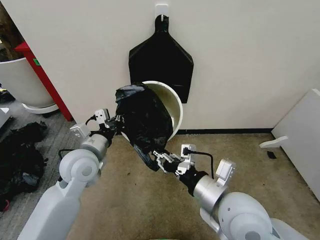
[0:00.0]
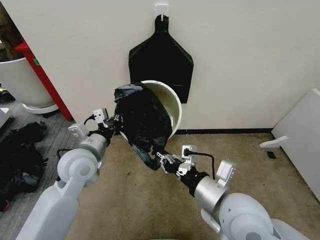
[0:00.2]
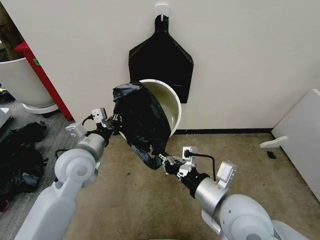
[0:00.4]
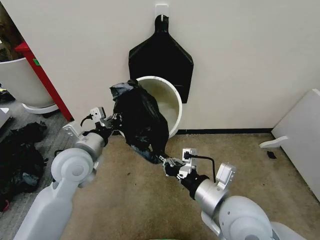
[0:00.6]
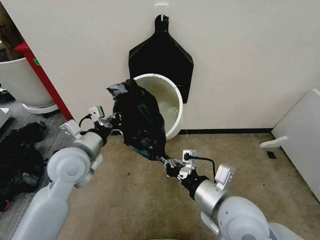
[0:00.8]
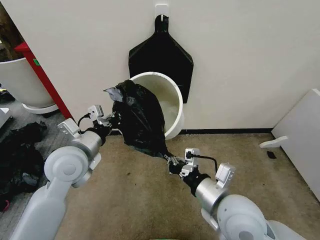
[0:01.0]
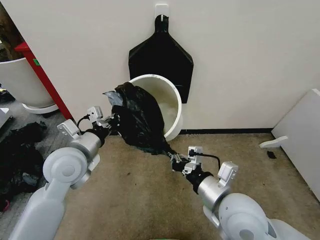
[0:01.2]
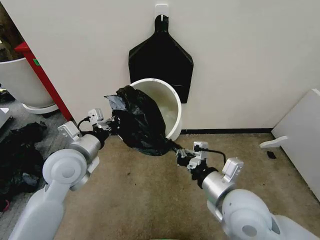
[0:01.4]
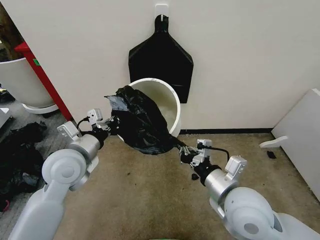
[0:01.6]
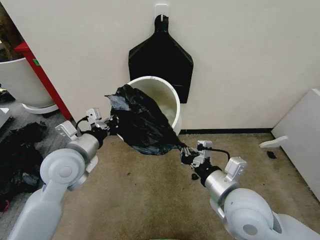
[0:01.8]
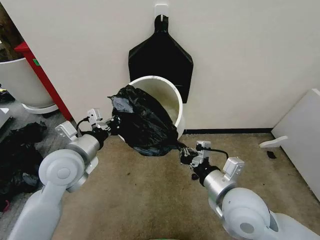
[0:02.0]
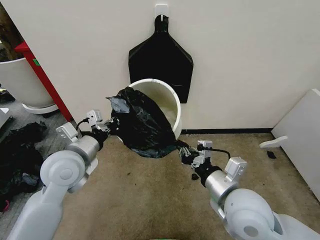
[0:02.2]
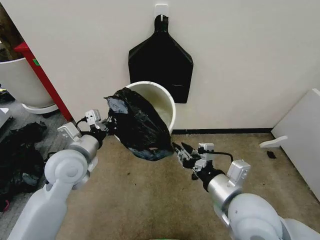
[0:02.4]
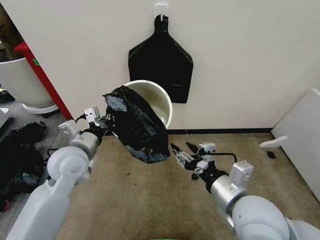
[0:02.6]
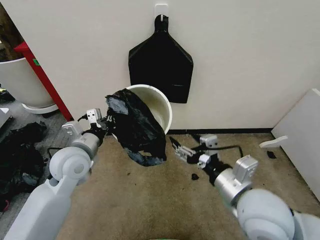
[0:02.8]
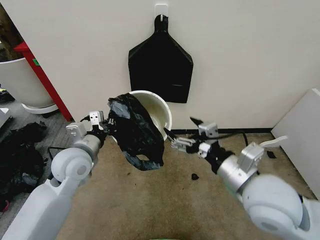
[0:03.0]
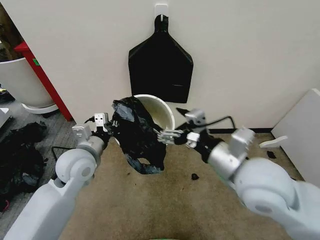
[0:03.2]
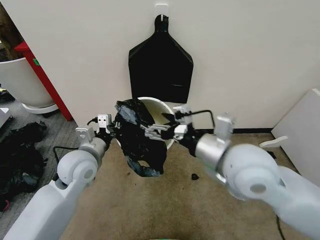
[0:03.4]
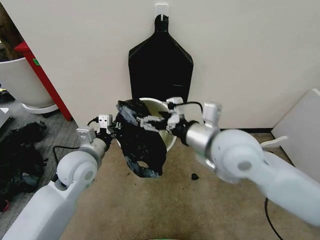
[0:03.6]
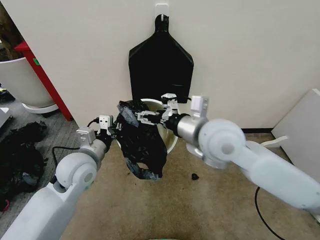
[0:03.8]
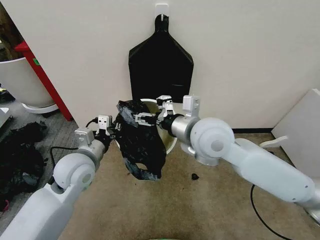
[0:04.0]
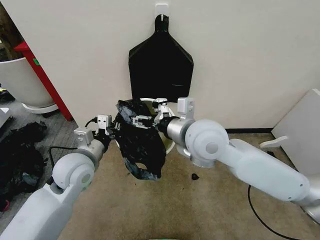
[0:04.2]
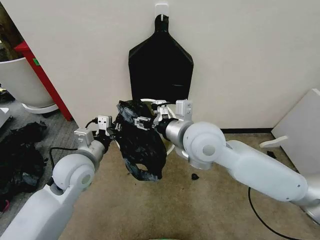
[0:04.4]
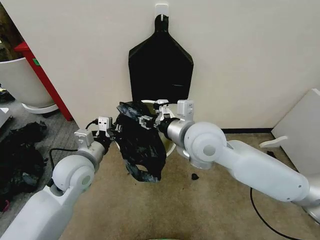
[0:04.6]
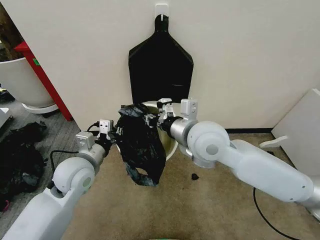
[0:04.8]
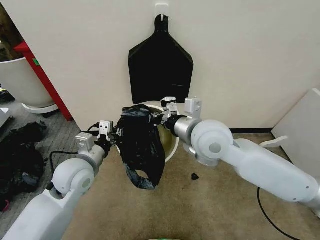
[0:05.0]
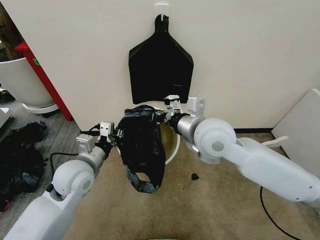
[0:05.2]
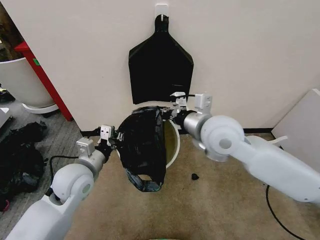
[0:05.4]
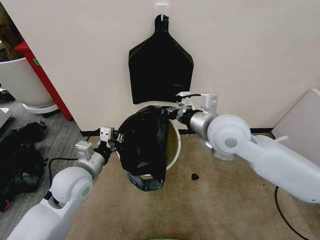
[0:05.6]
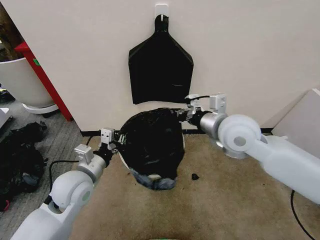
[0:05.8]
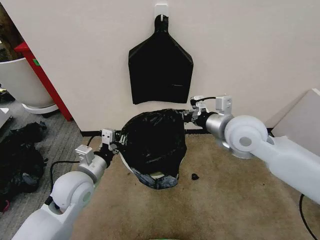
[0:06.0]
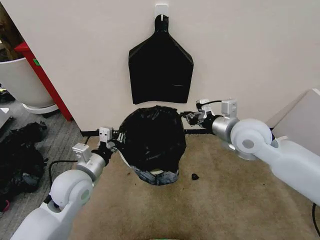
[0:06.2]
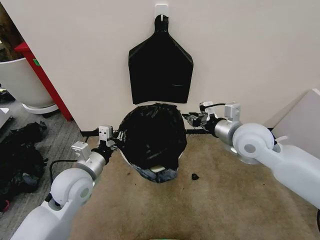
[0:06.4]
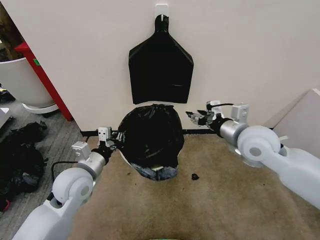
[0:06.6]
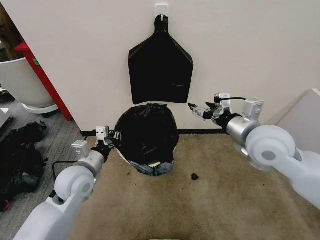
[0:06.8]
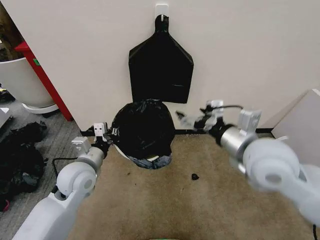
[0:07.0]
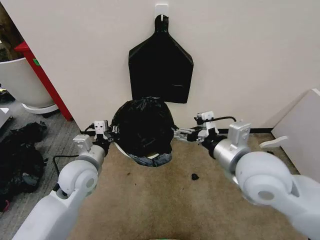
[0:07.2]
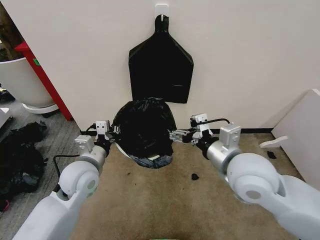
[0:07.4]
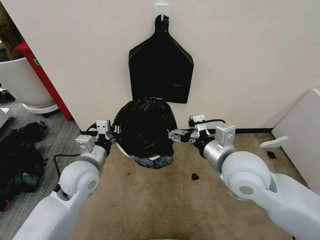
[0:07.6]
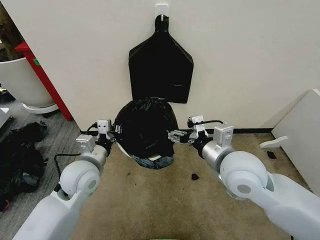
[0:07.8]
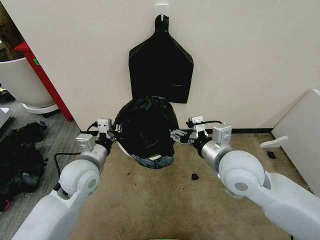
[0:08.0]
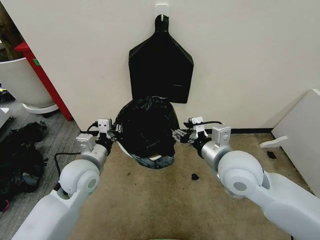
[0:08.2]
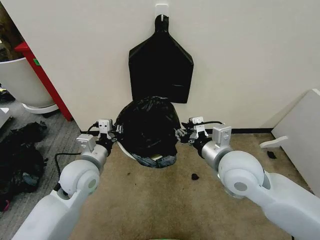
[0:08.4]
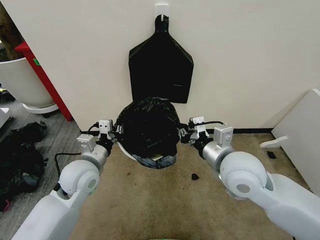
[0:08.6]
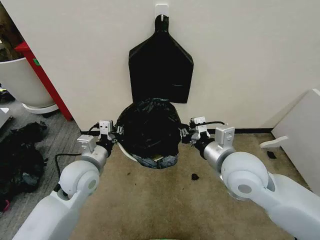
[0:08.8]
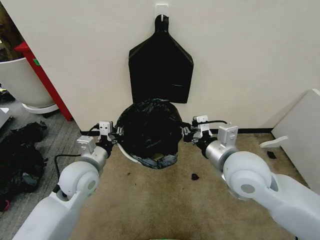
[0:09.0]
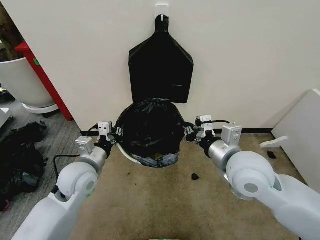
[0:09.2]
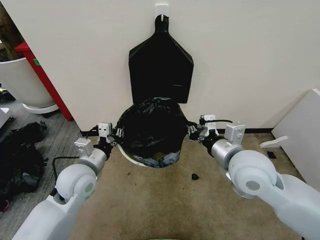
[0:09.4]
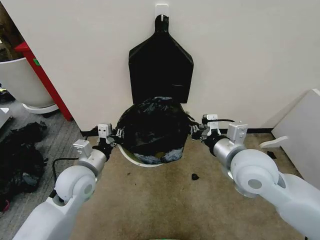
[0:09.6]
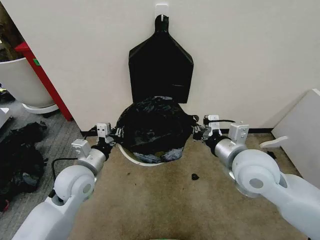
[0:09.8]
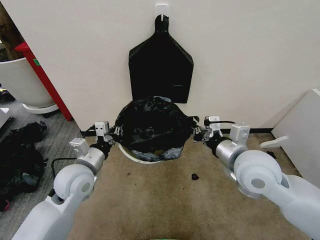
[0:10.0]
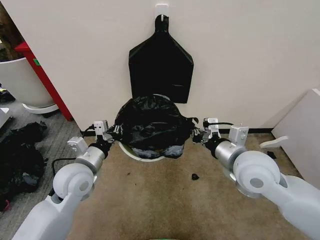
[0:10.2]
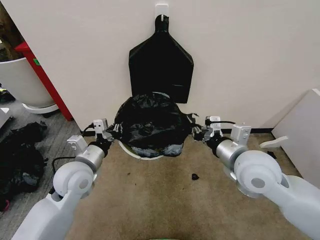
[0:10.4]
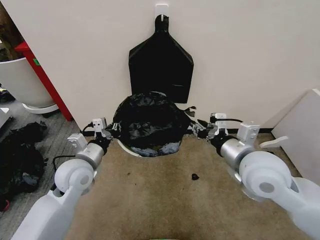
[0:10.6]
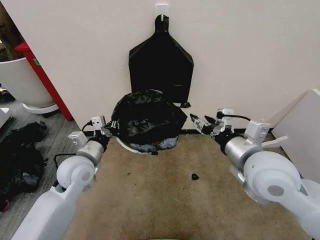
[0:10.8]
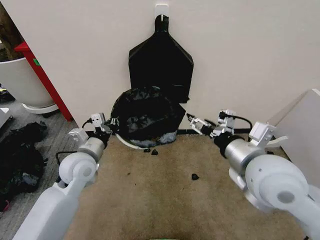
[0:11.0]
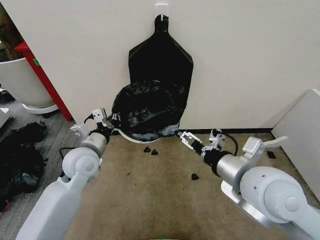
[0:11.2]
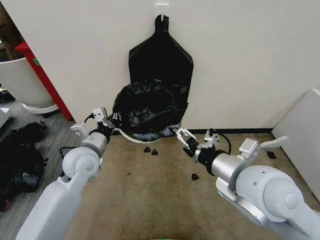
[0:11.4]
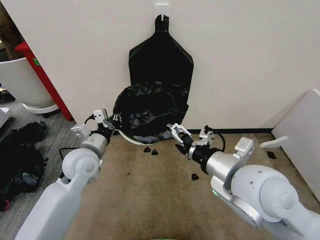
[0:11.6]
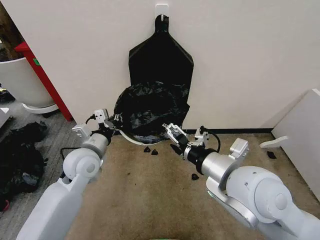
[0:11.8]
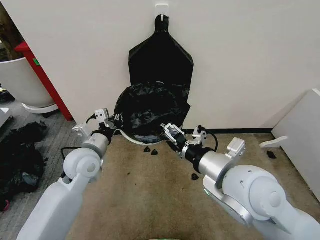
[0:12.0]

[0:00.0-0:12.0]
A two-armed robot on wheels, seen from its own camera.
Task of the whole recording: Place the garbage bag over the trash bin.
0:00.0 to 0:01.6: The grippers make only small movements.
0:01.6 to 0:03.0: The right gripper moves upward, roughly 5 cm, and opens up.
0:03.0 to 0:04.4: The right gripper heads forward and to the left, covering roughly 15 cm.
0:04.4 to 0:06.0: The right gripper travels to the right by approximately 10 cm, and closes up.
0:06.0 to 0:07.6: The right gripper travels backward by roughly 10 cm, and opens.
0:07.6 to 0:09.0: The right gripper closes up.
0:09.0 to 0:10.4: The grippers stay close to where they were, moving slightly.
0:10.4 to 0:12.0: The right gripper shifts some 10 cm backward and to the left, and opens.

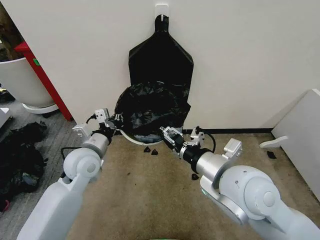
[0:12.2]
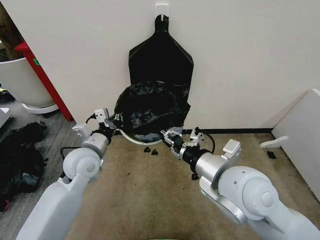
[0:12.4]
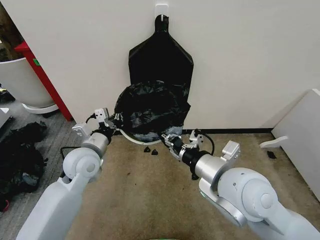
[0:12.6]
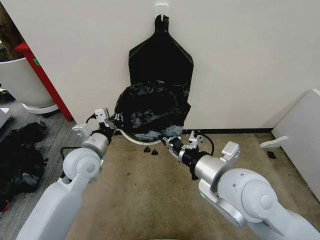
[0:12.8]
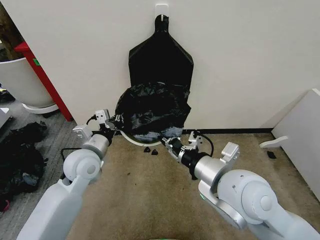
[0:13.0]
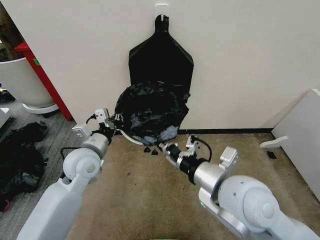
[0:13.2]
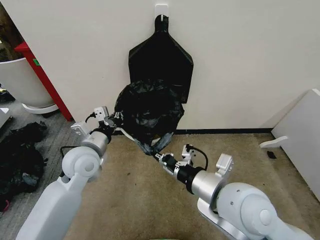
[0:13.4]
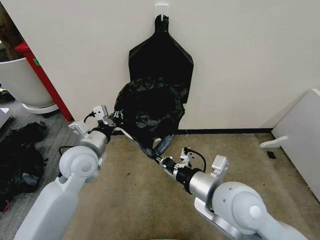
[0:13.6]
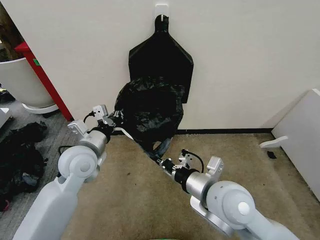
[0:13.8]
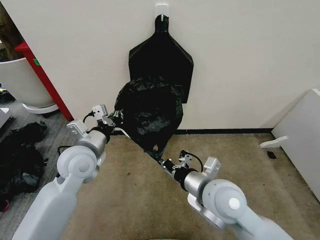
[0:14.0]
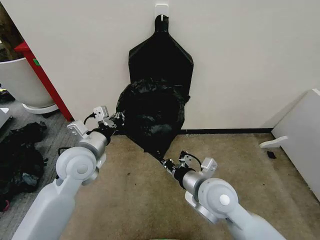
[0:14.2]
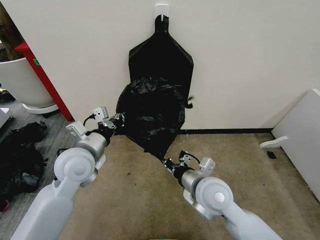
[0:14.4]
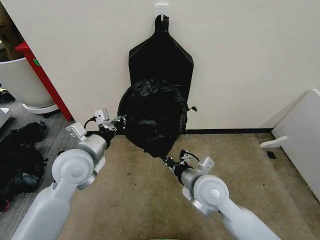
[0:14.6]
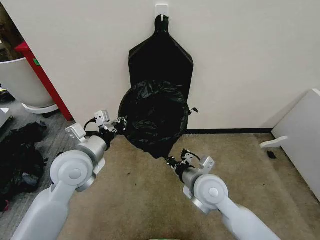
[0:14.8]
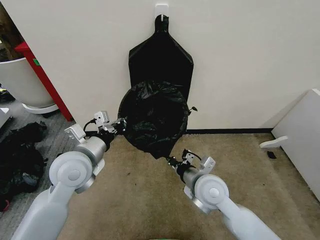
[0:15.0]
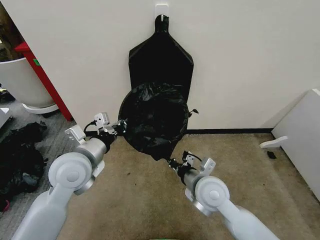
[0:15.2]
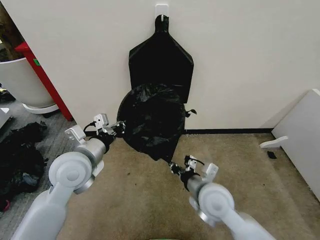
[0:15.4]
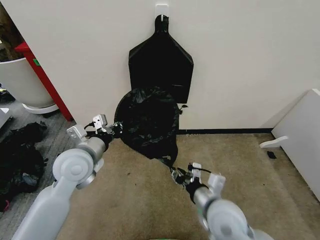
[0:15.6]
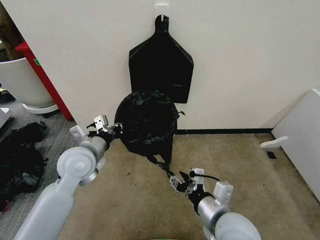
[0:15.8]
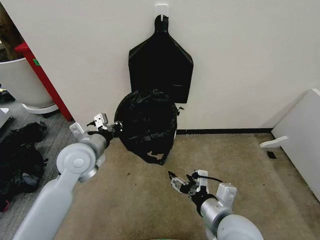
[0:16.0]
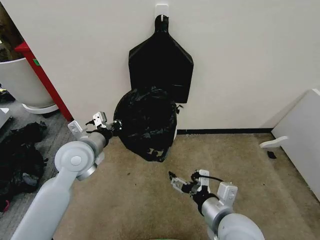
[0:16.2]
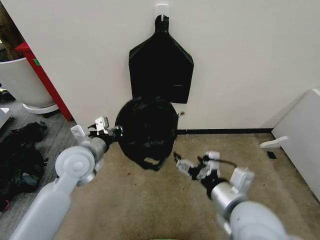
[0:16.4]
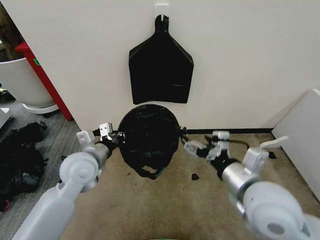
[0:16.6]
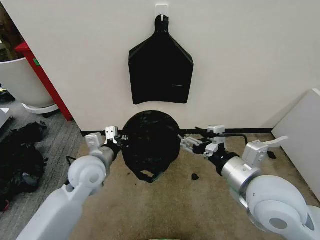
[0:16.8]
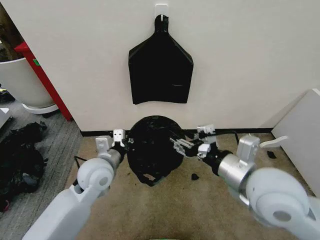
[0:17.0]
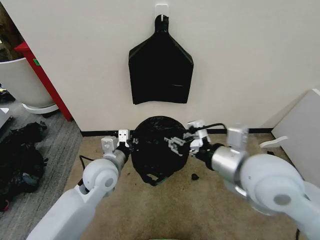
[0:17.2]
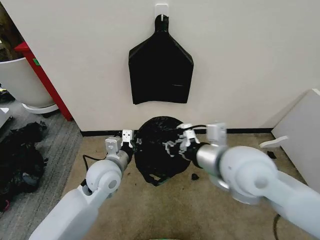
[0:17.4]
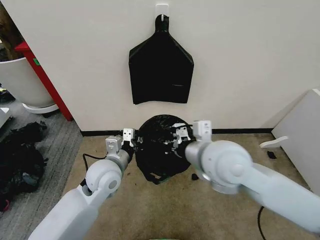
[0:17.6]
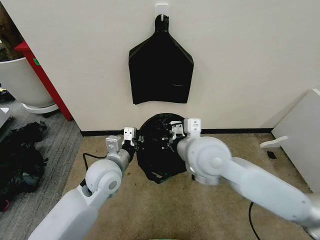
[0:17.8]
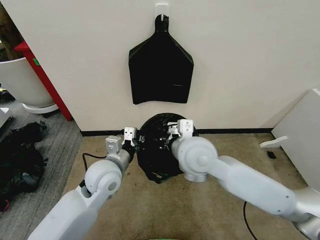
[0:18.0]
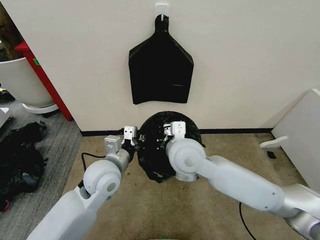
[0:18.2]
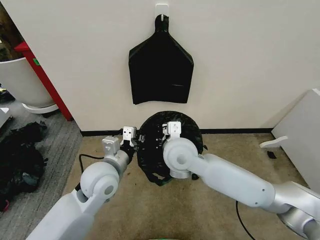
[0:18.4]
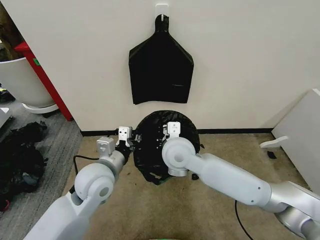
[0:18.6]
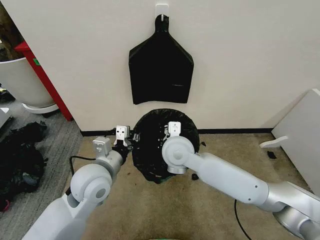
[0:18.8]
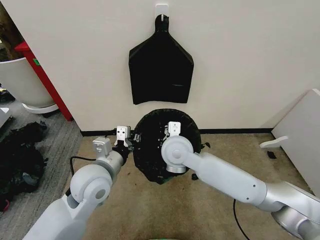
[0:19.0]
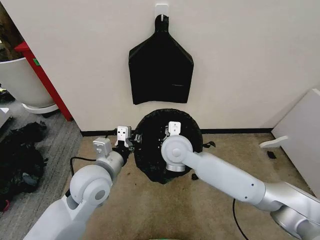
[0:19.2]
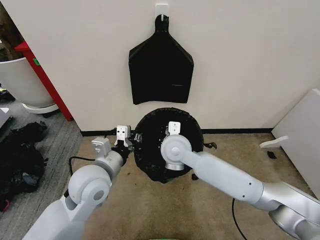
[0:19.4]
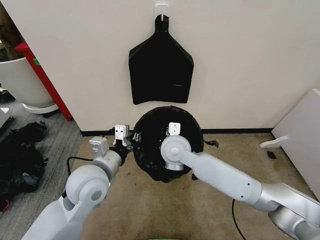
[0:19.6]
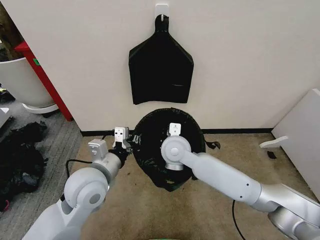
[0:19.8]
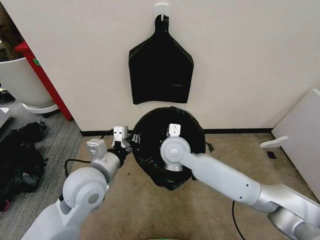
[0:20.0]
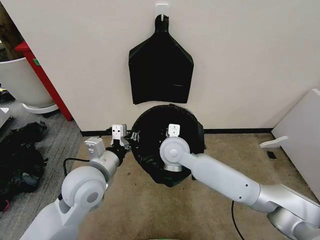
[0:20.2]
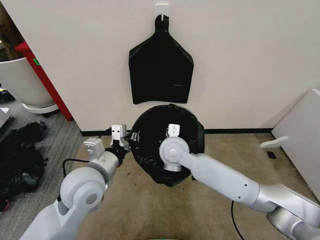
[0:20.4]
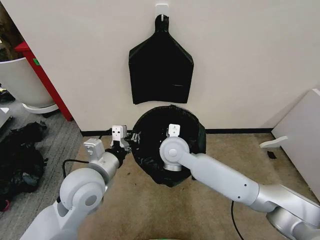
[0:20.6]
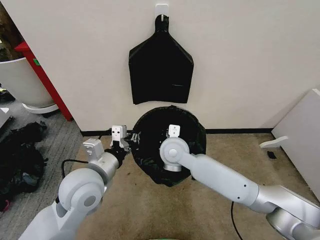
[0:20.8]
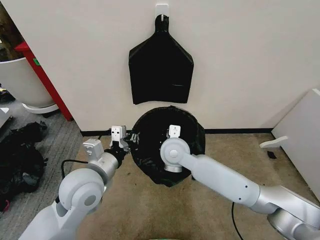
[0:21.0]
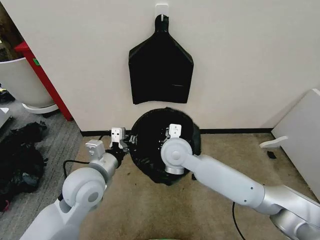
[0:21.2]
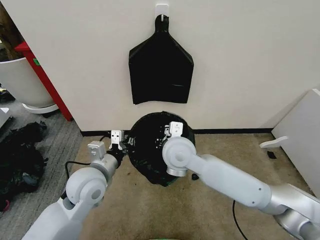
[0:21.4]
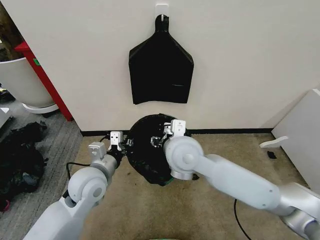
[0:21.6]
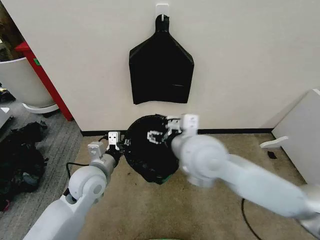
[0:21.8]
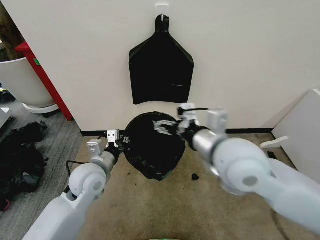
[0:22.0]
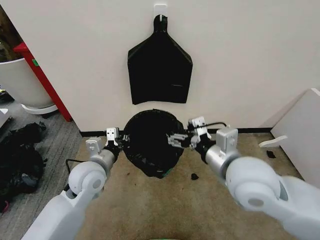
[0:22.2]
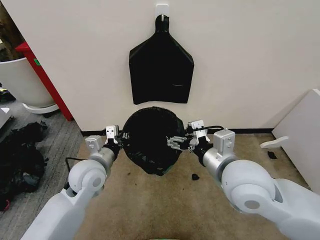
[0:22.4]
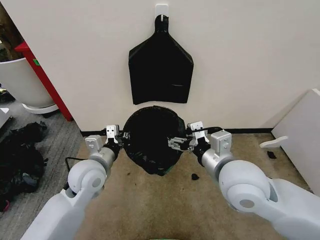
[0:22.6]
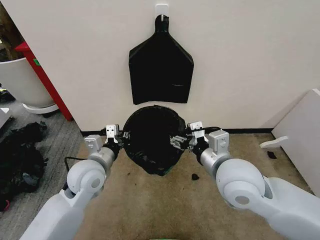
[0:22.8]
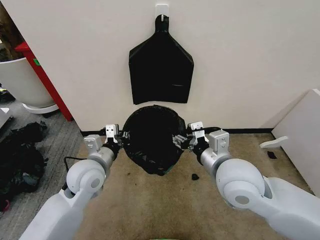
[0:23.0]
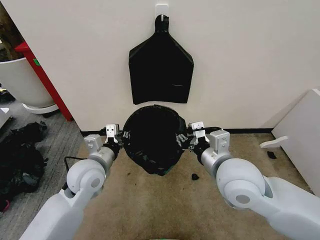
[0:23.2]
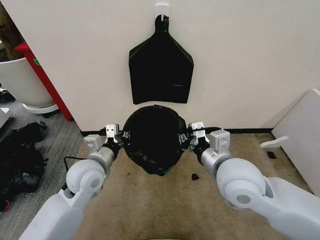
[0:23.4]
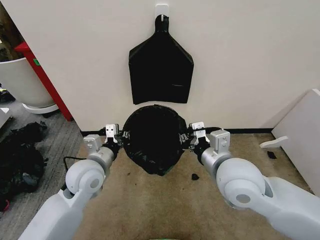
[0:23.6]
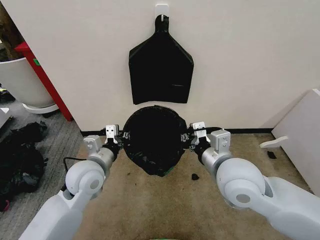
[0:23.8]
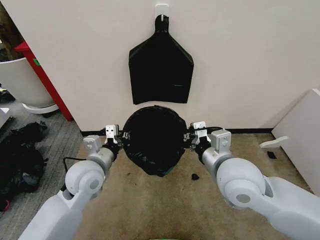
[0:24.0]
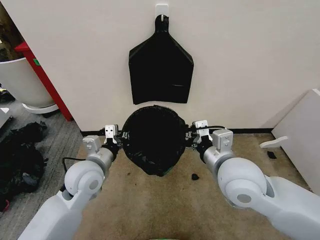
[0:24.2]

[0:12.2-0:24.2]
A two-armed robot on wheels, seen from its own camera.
Task of the whole recording: Place the garbage bag over the trash bin.
0:12.2 to 0:13.8: The right gripper is displaced downward by roughly 5 cm, and closes up.
0:13.8 to 0:15.2: The right gripper moves downward and forward, roughly 10 cm.
0:15.2 to 0:16.6: The right gripper goes about 15 cm upward, backward and to the right, and opens up.
0:16.6 to 0:18.2: The right gripper shifts some 20 cm to the left and forward, and closes; the left gripper goes about 5 cm to the right.
0:18.2 to 0:19.8: The left gripper ends up about 5 cm from where it was. The right gripper shifts about 10 cm forward and downward.
0:19.8 to 0:21.2: The grippers move only a little.
0:21.2 to 0:22.6: The left gripper shifts by approximately 5 cm; the right gripper moves to the right, backward and upward, about 20 cm, and opens its fingers.
0:22.6 to 0:24.2: The right gripper closes.
